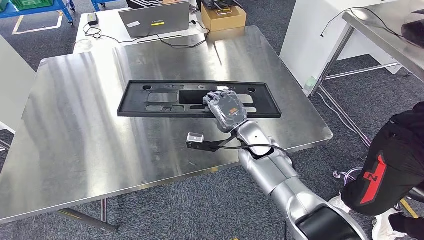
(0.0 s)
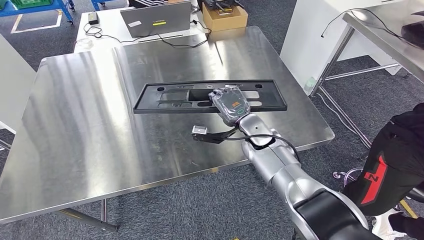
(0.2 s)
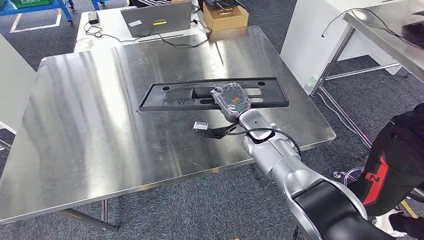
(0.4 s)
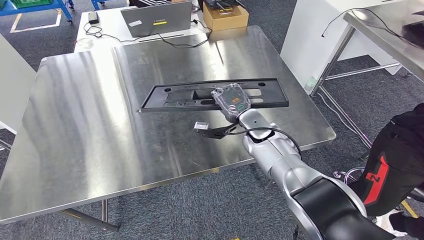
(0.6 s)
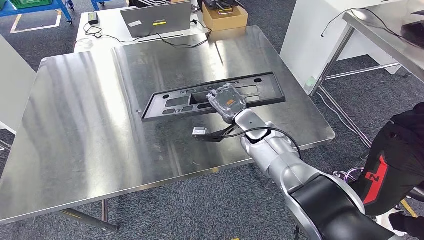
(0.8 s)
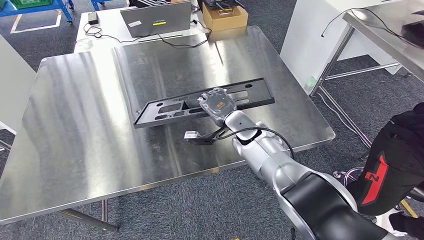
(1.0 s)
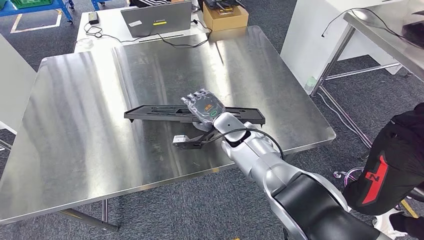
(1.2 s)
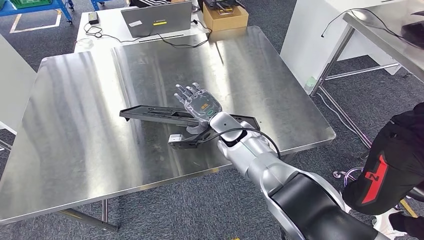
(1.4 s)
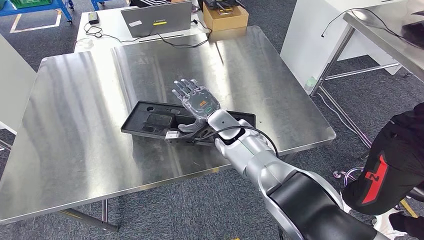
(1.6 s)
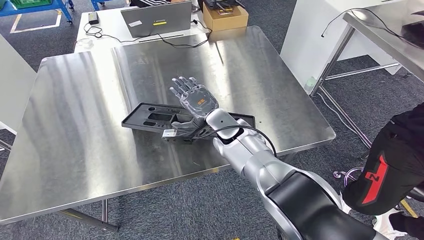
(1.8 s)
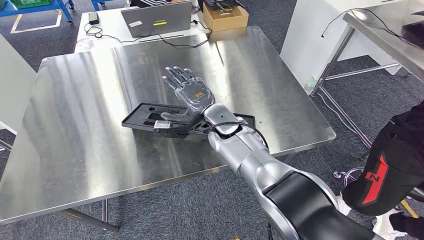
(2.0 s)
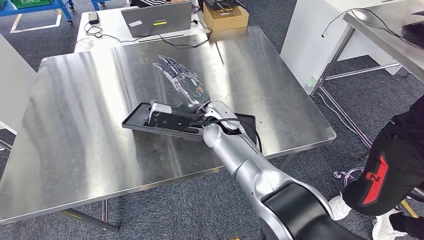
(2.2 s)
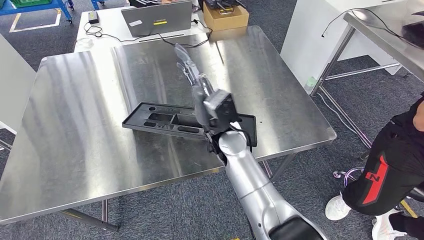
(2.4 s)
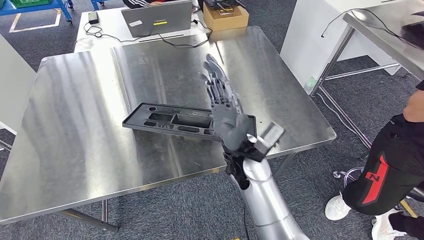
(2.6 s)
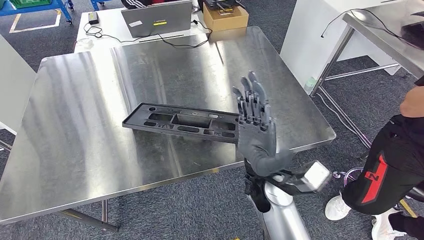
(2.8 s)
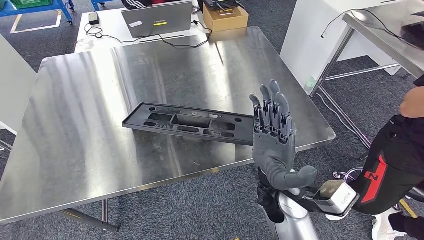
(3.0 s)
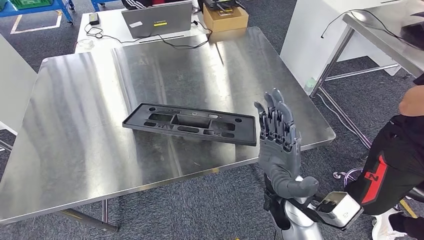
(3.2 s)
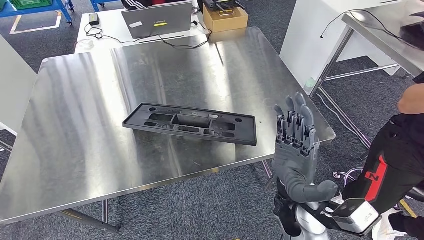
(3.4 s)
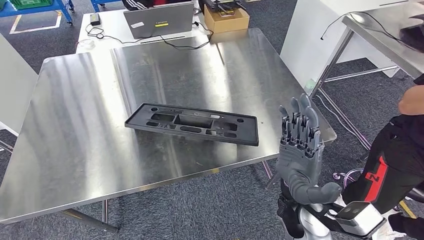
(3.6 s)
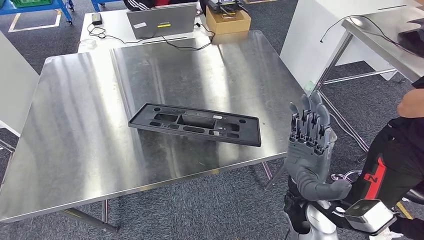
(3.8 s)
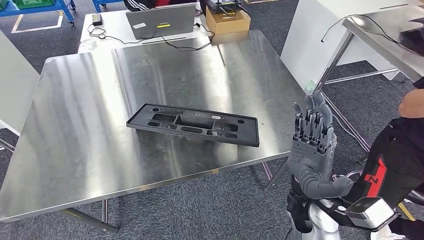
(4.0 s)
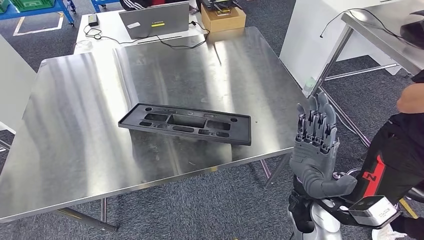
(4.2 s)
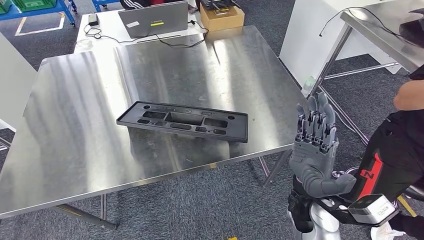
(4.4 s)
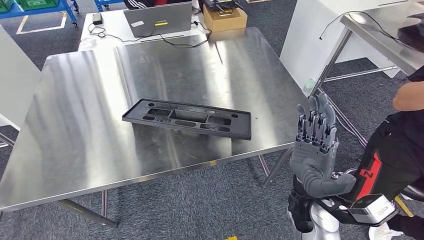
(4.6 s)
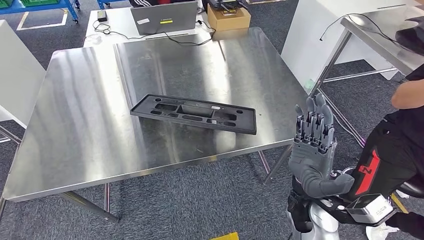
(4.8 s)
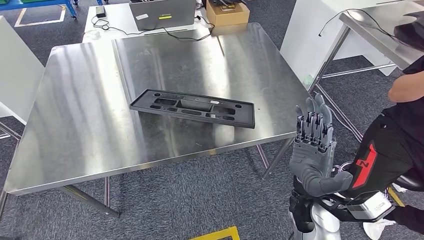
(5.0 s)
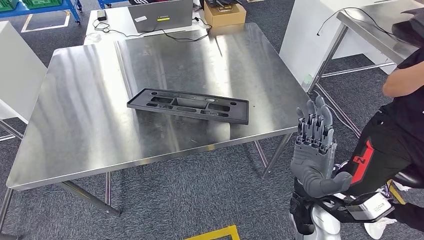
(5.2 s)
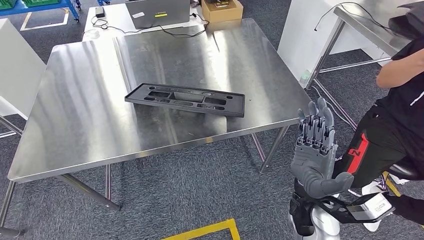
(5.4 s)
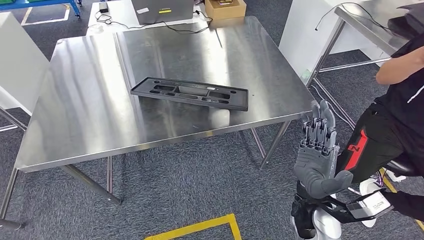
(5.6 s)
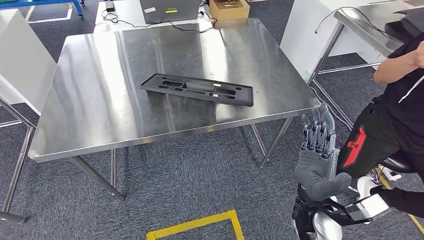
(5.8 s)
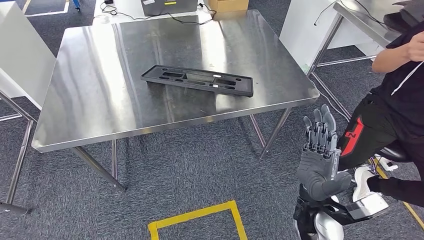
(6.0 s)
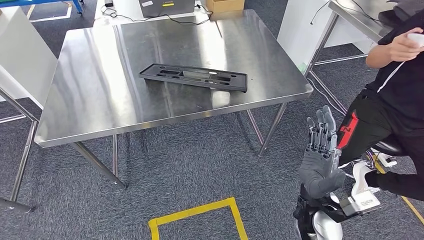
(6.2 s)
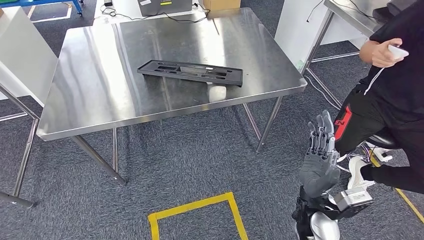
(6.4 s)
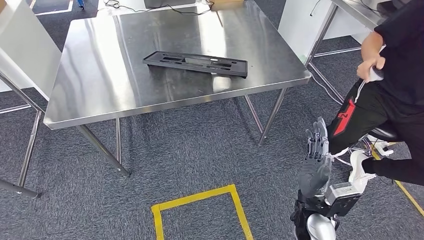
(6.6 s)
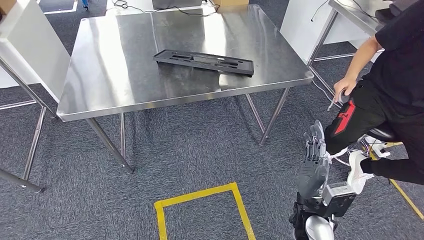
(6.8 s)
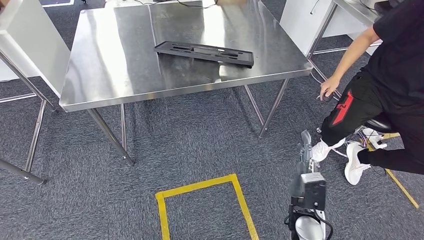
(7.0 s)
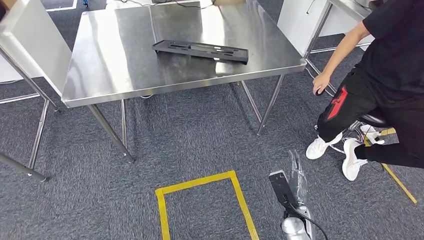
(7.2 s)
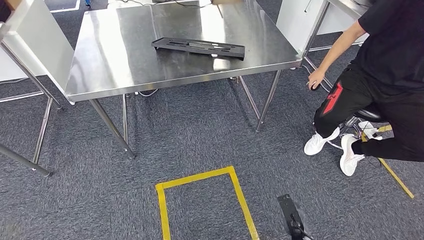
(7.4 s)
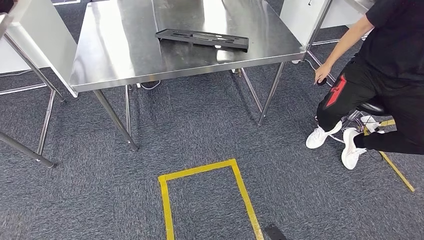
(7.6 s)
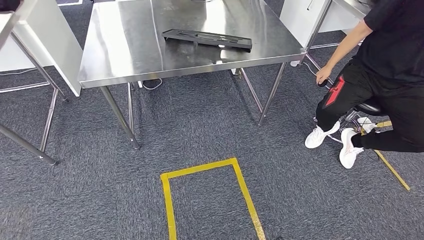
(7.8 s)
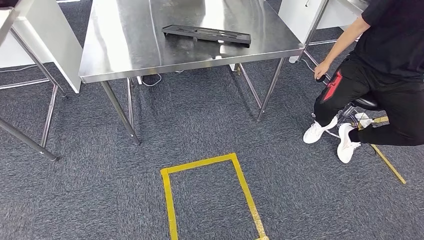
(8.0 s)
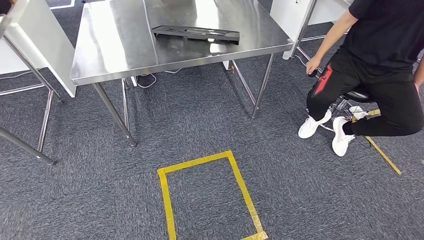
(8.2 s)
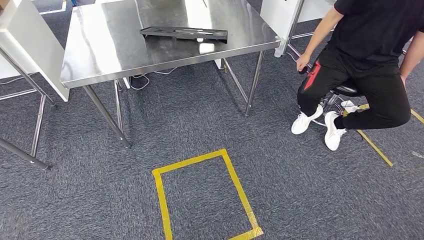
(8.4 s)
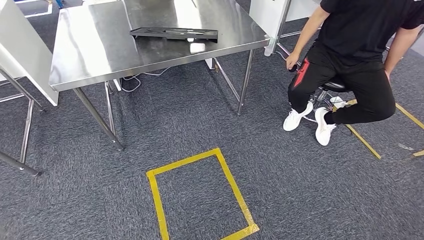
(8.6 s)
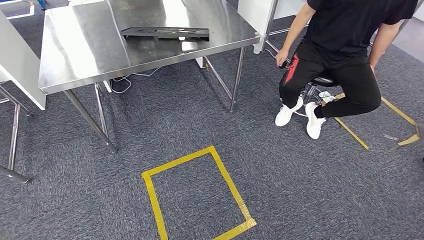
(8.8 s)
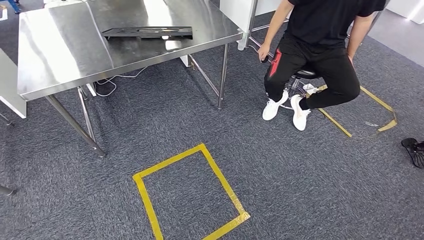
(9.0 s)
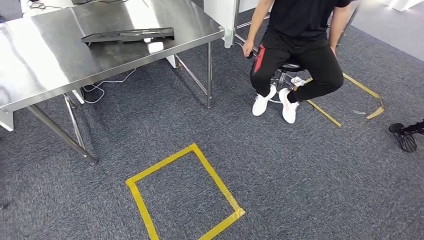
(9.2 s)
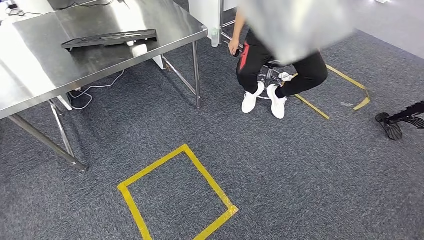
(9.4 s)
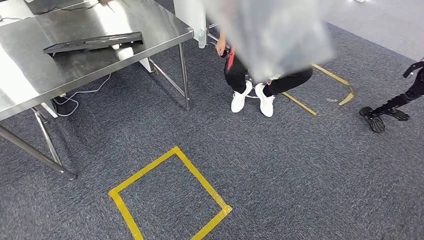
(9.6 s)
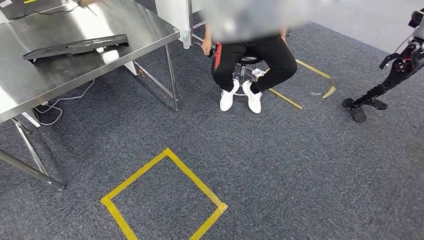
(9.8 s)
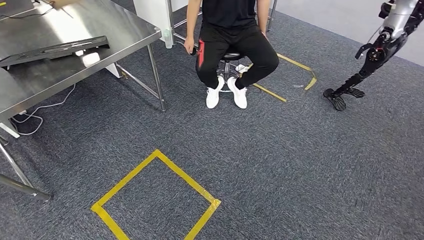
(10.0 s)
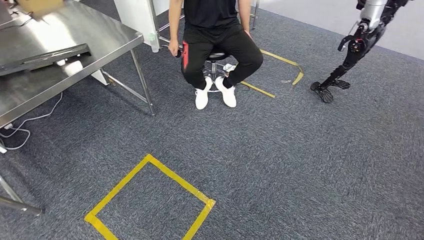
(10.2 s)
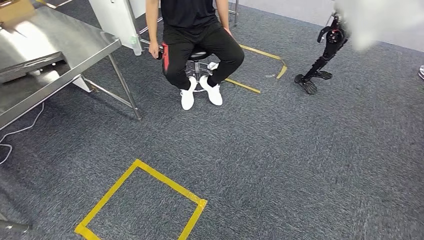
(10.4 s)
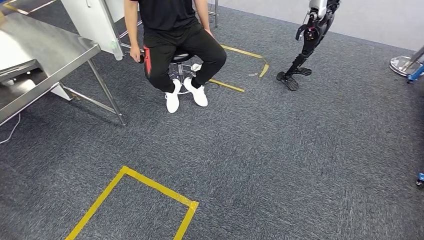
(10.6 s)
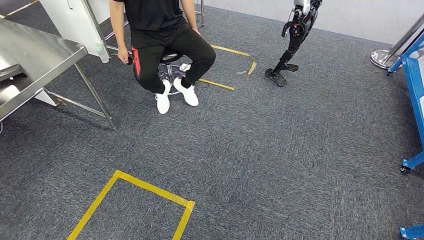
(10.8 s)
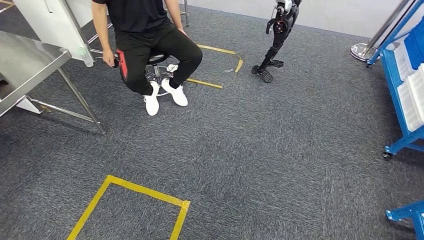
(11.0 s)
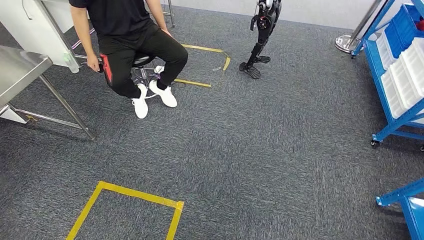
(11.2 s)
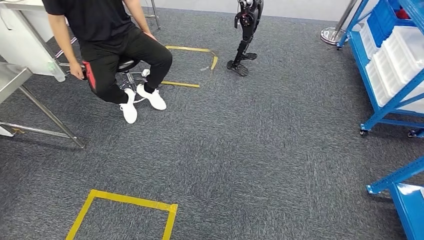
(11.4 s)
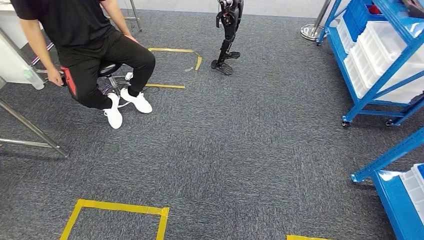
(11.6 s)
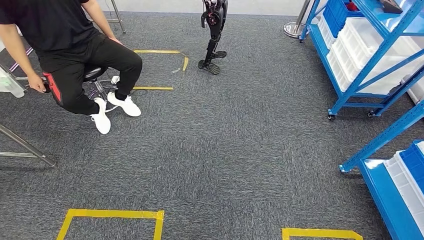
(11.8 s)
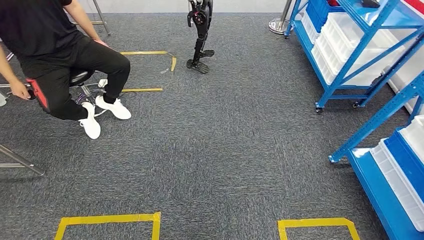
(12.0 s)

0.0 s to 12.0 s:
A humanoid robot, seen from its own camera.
Step, 0.0 to 5.0 s: Insert the large material into the corresponding slot on the workbench.
0.0 to 1.6 s: The right hand is displaced to the left by approximately 5 cm.
1.6 to 3.0 s: The right hand is displaced backward and to the right by some 20 cm.

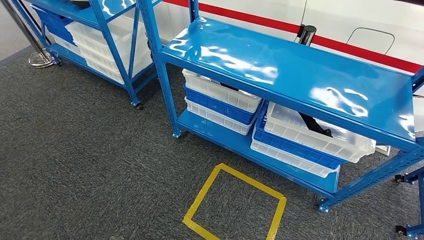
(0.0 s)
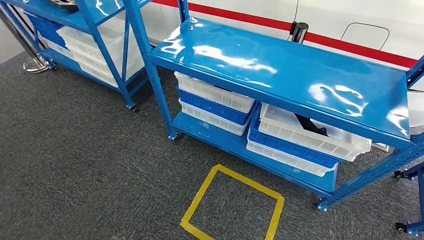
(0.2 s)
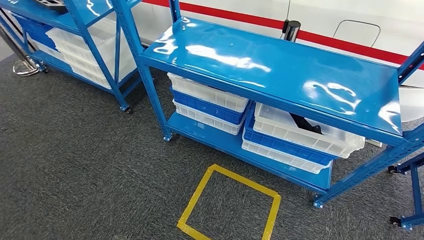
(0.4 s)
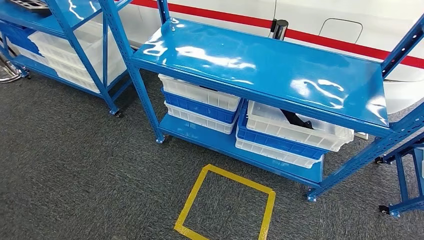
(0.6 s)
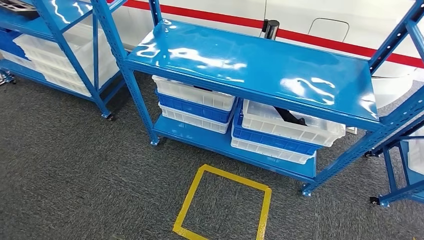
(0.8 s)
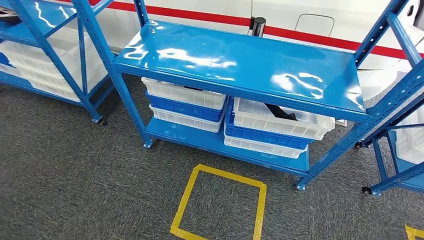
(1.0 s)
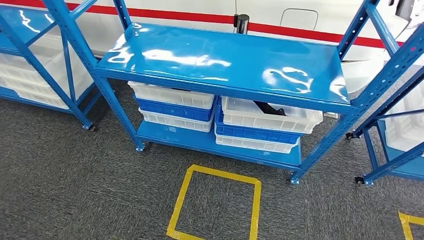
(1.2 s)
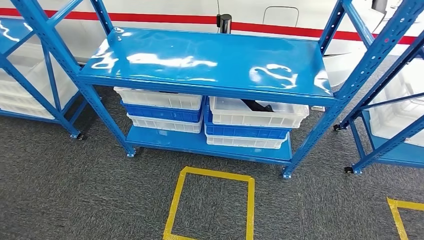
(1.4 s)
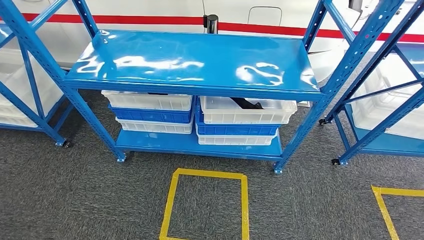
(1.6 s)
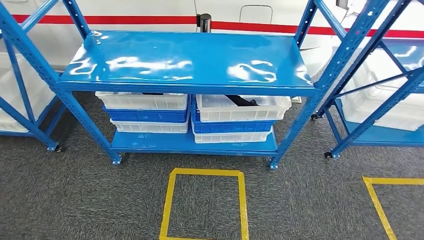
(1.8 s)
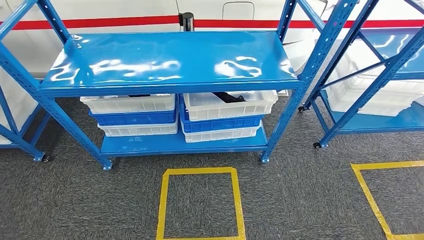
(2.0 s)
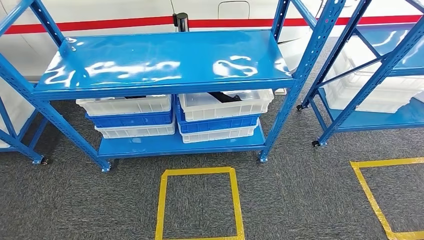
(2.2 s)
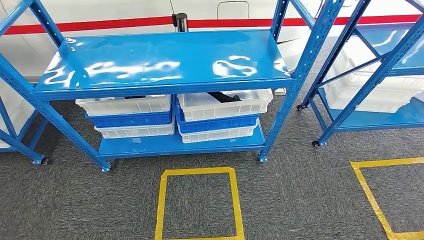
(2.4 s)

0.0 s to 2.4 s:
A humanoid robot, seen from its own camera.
Step, 0.0 to 2.4 s: Move to the initial position of the shelf.
